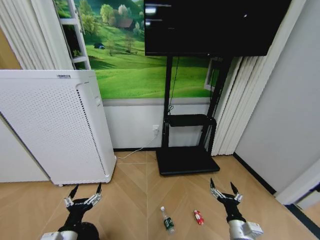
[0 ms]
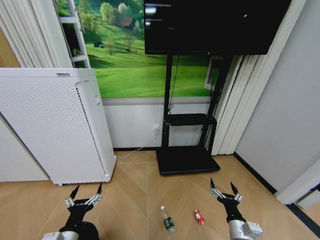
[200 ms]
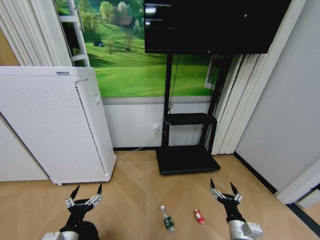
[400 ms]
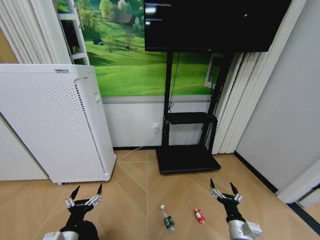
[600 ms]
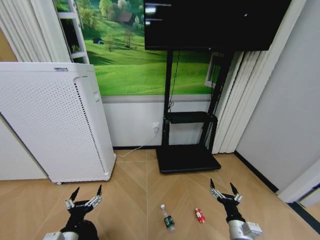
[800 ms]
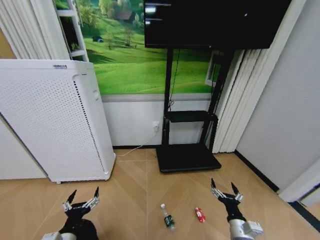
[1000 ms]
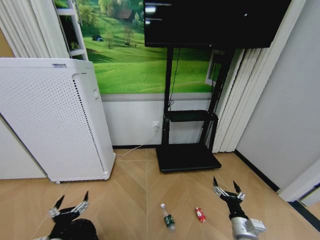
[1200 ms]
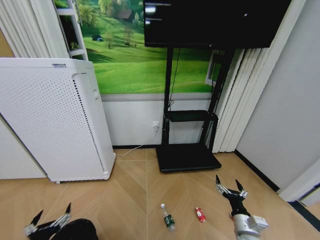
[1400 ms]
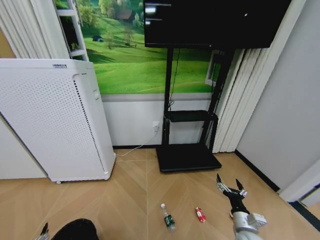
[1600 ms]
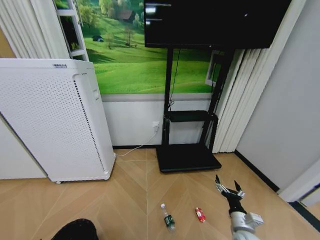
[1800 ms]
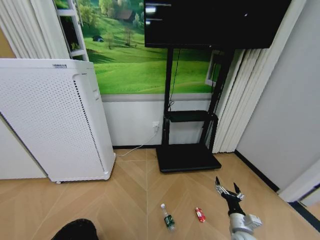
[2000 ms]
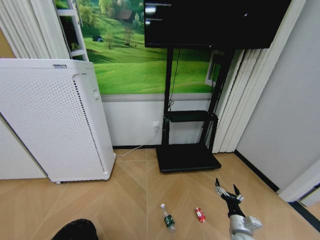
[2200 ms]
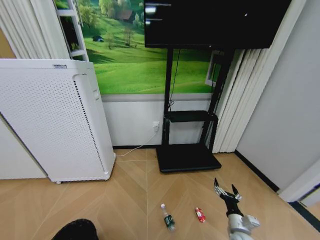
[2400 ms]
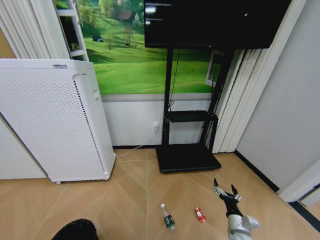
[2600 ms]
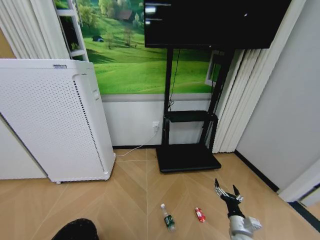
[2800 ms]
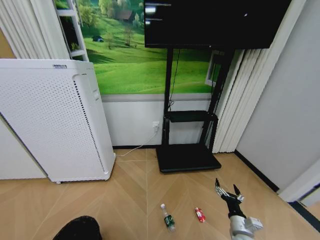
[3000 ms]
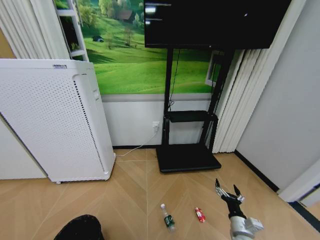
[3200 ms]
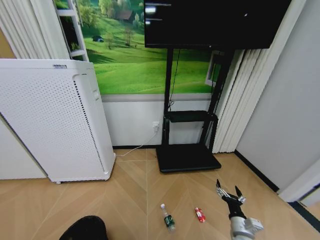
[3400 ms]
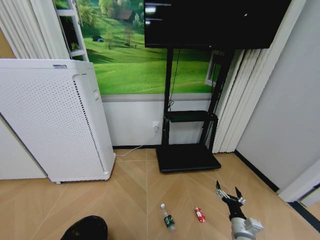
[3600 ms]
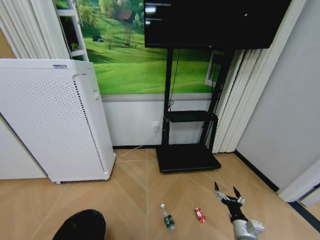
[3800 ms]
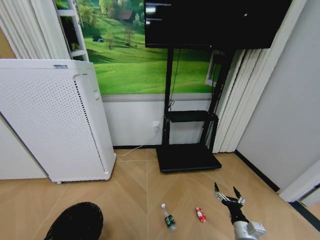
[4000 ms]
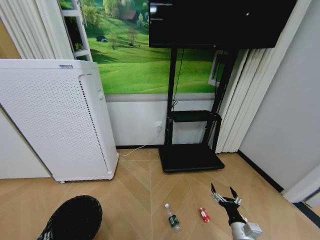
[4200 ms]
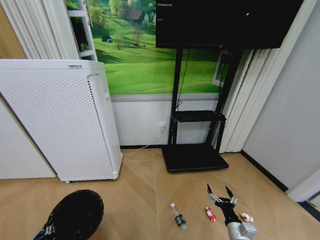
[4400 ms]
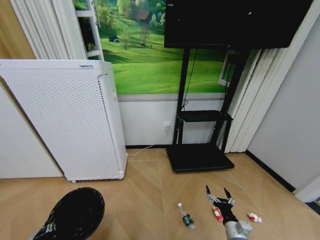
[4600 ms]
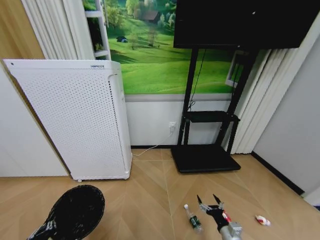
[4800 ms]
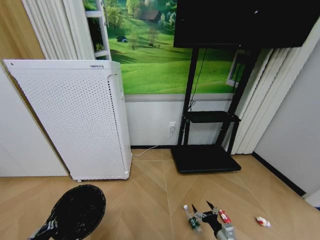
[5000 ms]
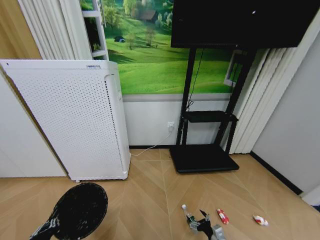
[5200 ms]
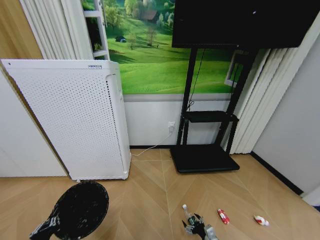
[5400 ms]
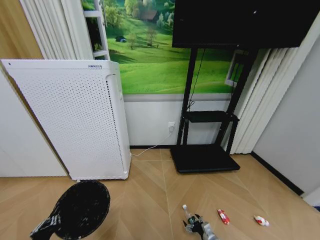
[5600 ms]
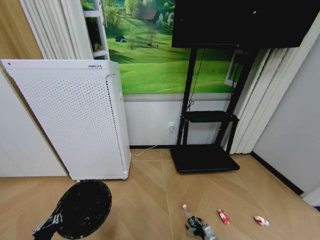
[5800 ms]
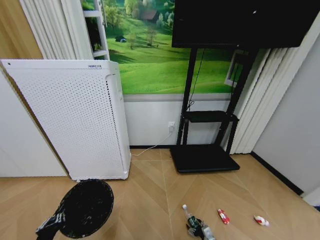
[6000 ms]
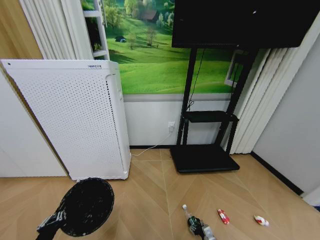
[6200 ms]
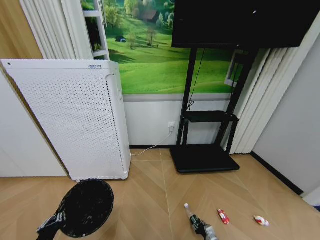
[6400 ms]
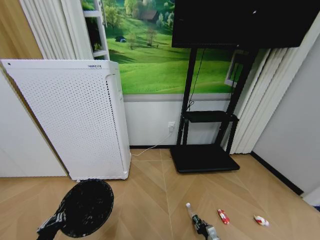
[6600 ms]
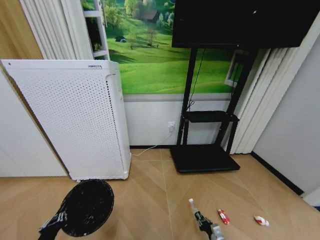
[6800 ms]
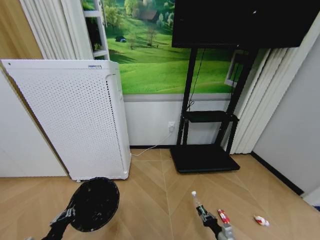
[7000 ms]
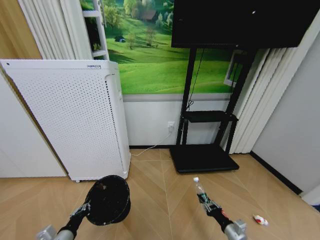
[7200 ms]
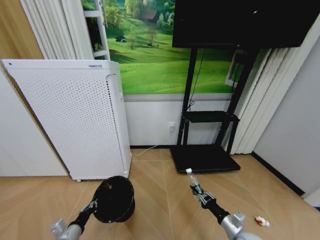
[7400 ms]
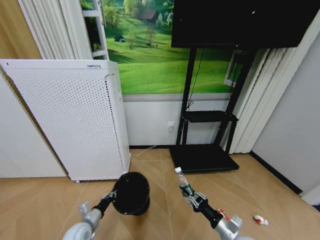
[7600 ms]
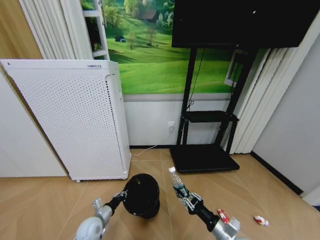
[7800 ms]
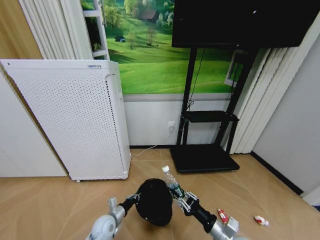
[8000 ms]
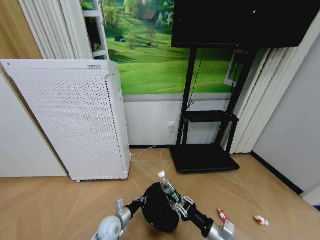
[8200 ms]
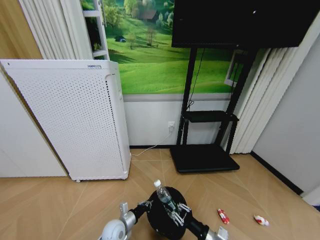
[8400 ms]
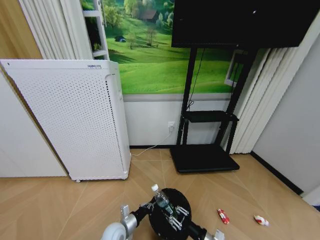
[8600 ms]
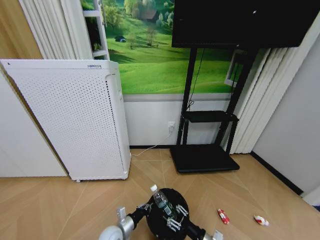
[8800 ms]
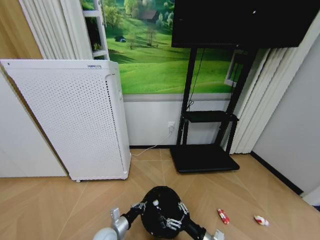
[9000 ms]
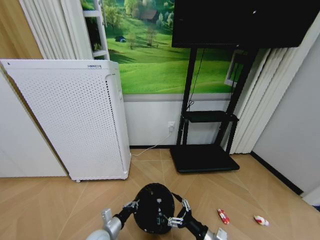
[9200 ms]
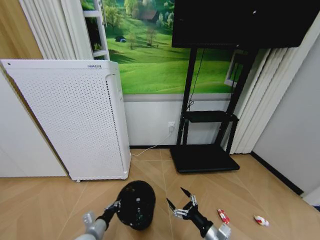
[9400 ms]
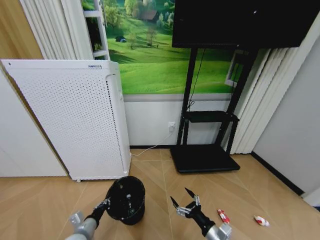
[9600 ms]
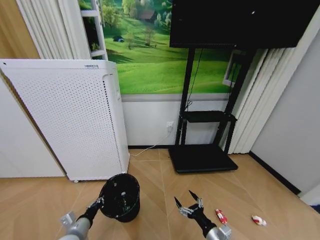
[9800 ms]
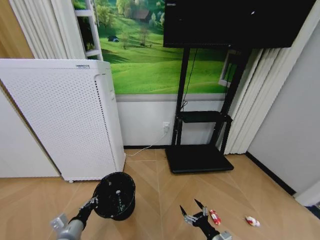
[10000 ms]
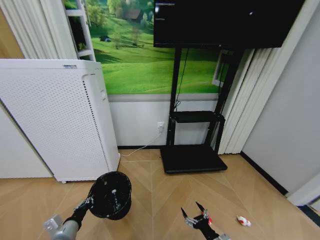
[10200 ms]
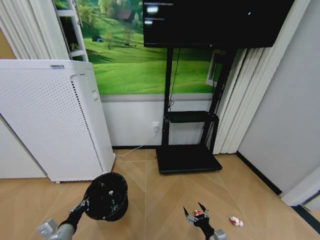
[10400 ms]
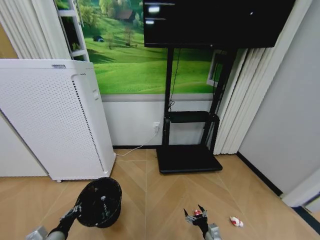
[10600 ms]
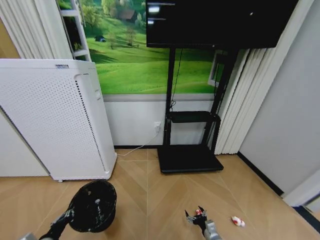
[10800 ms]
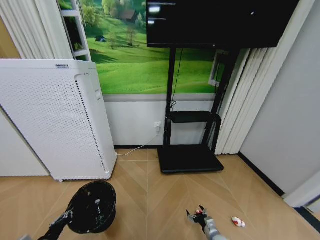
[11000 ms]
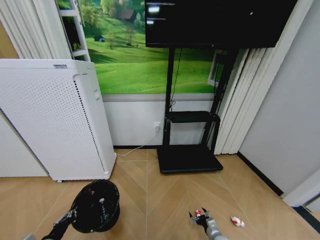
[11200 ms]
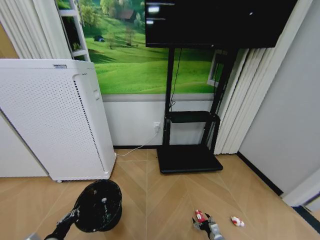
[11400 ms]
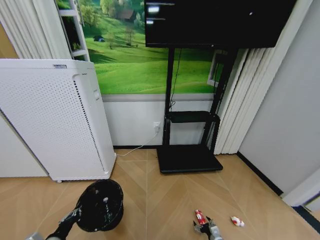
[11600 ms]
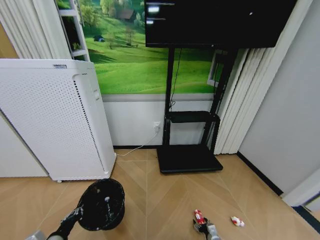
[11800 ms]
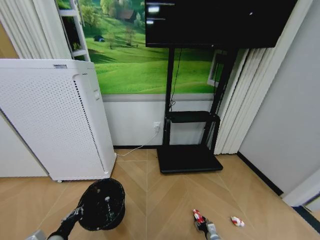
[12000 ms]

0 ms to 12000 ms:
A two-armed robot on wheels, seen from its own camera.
Task of the whole recording: Pick up the trash bin and place the garbage on the floor into it.
0 ms to 1600 ms: The left gripper travels backward and to the left by approximately 10 cm.
3000 ms to 4400 ms: The left gripper closes up.
4400 ms to 6000 ms: The right gripper travels downward by some 20 cm; the left gripper shifts by about 5 cm.
6000 ms to 7600 ms: The right gripper shifts about 25 cm upward, and closes its fingers. Meanwhile the left gripper goes about 15 cm forward and downward.
7600 ms to 9000 ms: The left gripper travels to the right by approximately 15 cm, while the right gripper goes roughly 10 cm to the left, and opens up.
9000 ms to 10400 ms: The right gripper moves downward, approximately 10 cm, and opens up. Meanwhile the left gripper shifts about 20 cm to the left, upward and backward.
10400 ms to 12000 ms: The right gripper moves downward and forward, some 20 cm, and closes up.

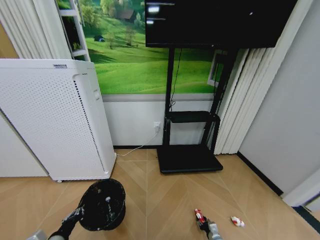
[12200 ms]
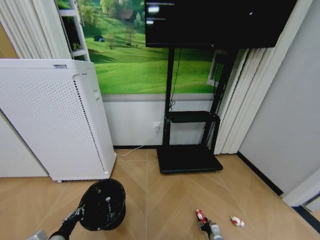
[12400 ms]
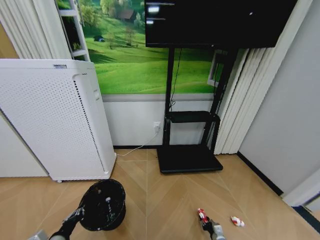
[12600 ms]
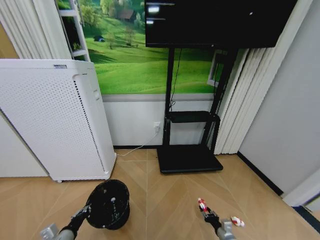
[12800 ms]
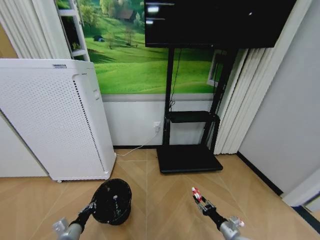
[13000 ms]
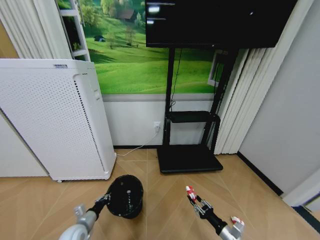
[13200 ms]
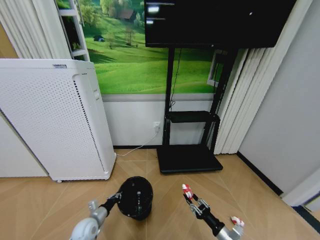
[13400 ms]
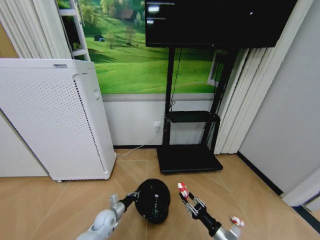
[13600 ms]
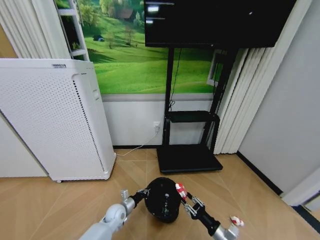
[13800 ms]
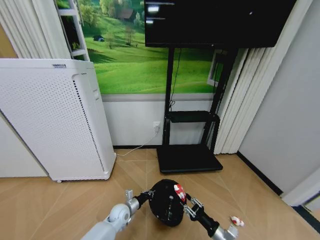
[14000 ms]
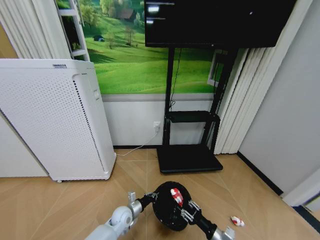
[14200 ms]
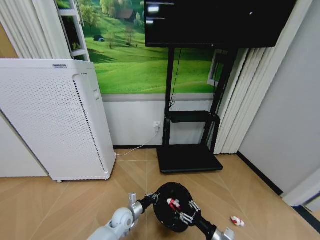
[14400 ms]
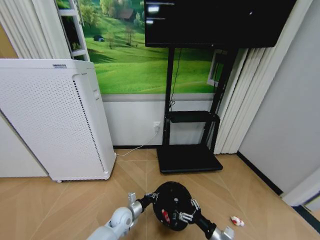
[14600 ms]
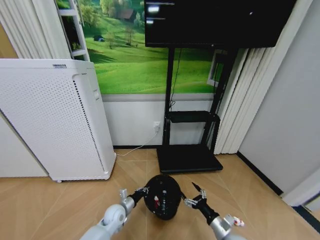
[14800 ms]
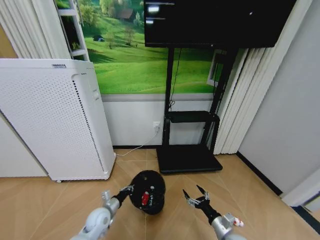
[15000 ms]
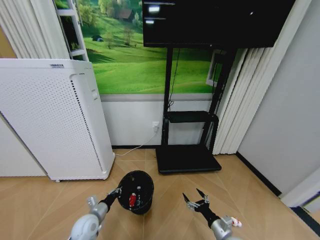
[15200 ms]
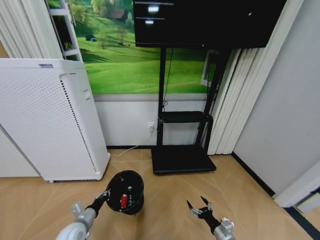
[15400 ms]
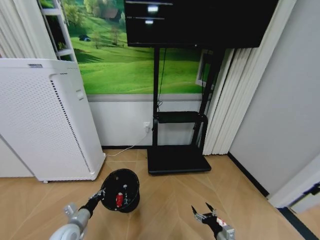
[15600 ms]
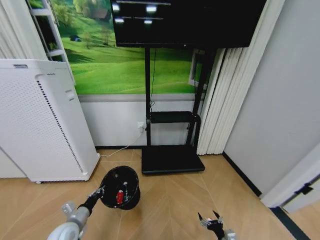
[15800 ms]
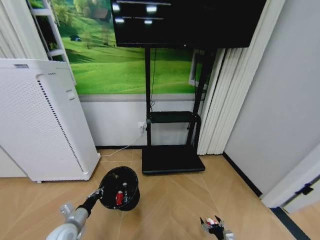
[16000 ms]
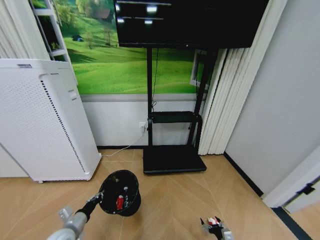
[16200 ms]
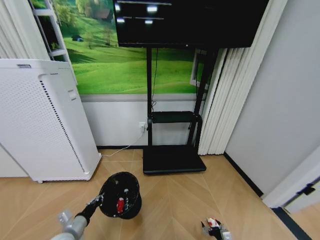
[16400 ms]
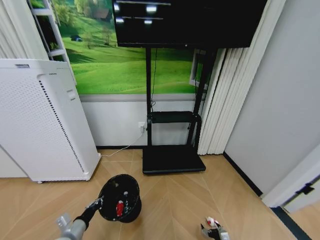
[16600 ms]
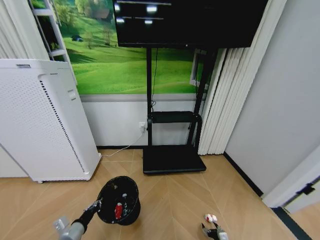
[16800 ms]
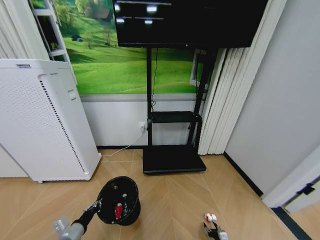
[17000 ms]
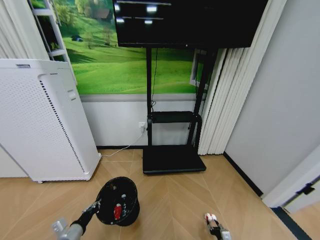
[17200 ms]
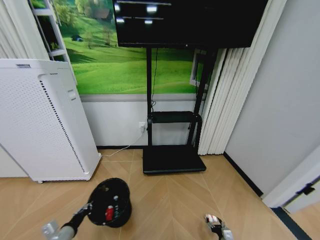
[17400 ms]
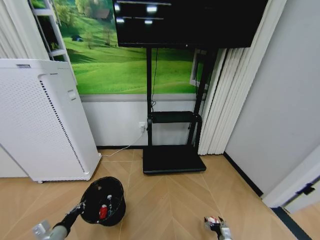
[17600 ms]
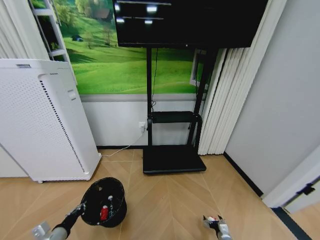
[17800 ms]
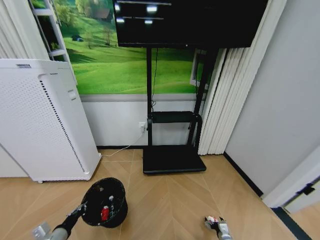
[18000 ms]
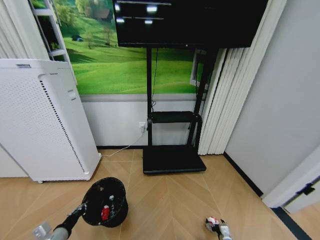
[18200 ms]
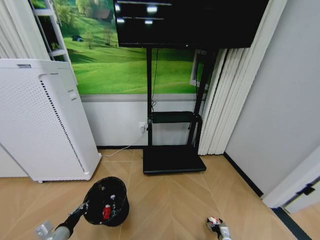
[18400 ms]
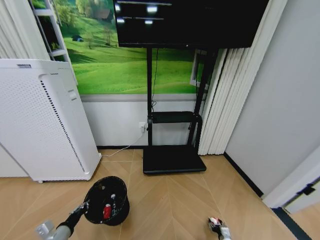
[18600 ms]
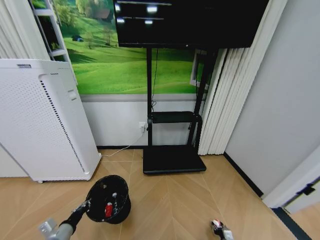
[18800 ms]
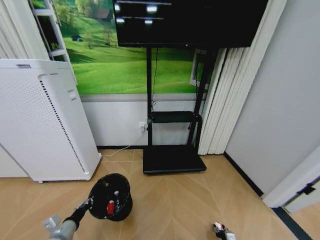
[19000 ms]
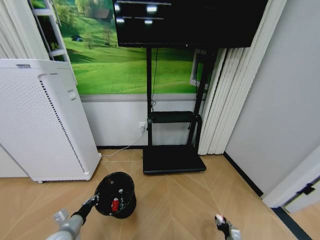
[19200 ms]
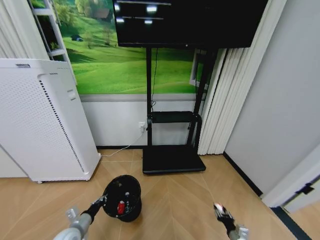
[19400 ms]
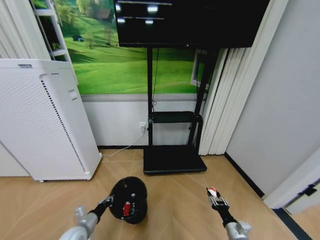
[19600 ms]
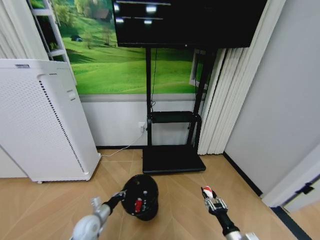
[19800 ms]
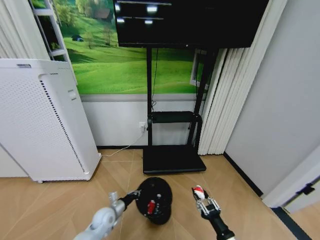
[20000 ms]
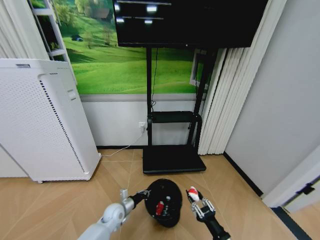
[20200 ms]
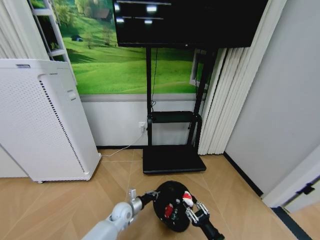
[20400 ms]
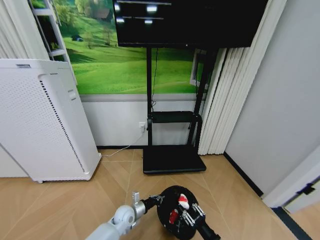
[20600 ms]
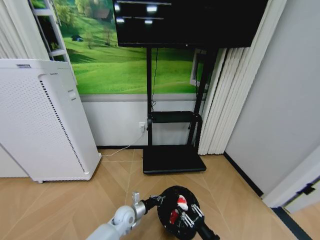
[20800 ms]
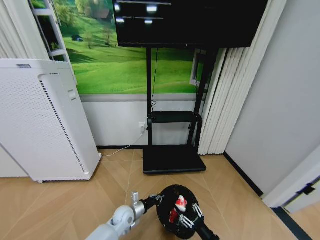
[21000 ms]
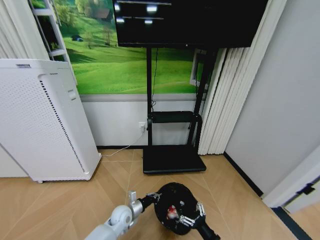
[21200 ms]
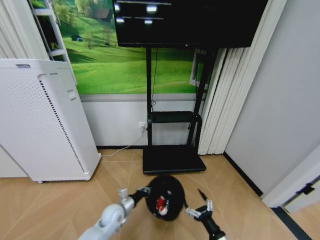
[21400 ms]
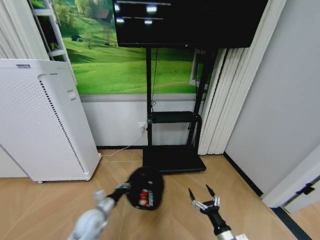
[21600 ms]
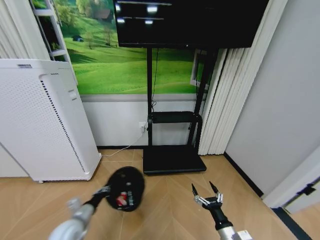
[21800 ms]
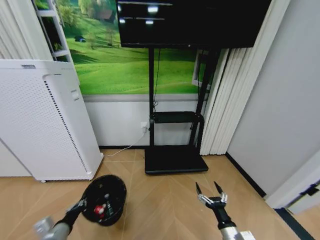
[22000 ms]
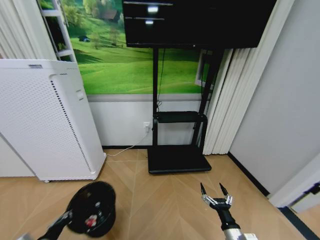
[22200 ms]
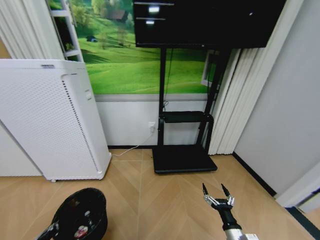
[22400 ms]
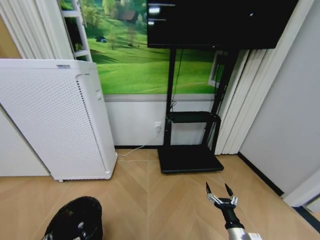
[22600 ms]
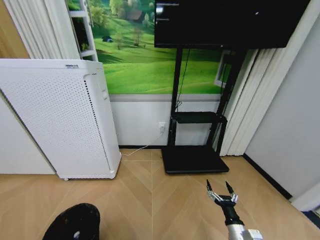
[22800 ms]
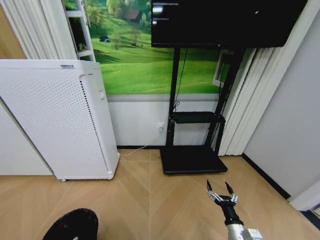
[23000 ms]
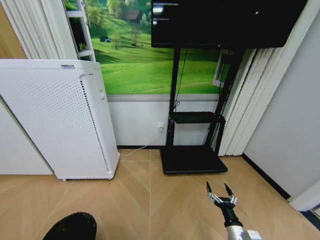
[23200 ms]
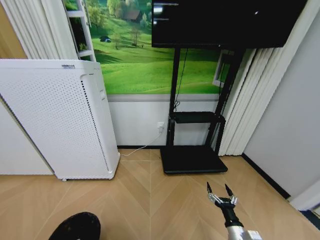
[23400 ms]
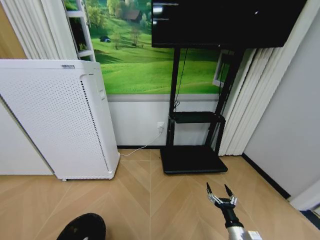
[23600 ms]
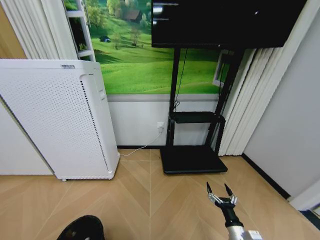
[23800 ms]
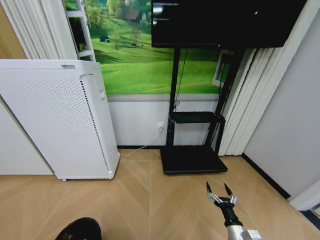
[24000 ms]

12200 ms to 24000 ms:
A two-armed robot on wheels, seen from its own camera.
Task of the whole recording: Pick up the trash bin and place the garbage on the floor into it.
12200 ms to 13600 ms: The left gripper goes some 25 cm forward, downward and to the right. Meanwhile the right gripper is displaced upward by roughly 20 cm.
13600 ms to 15200 ms: The right gripper opens, while the left gripper shifts roughly 5 cm upward, and travels to the right and back again, about 10 cm each way.
15200 ms to 16600 ms: The left gripper is displaced backward by some 10 cm. Meanwhile the right gripper is displaced downward by approximately 20 cm.
16600 ms to 18200 ms: The right gripper closes and opens again, while the left gripper changes place by about 5 cm.
18200 ms to 19600 ms: The right gripper goes about 20 cm upward, and closes up. Meanwhile the left gripper is displaced forward and to the right by approximately 10 cm.
19600 ms to 21000 ms: The left gripper moves to the right and forward, about 20 cm, while the right gripper is displaced to the left by approximately 10 cm.
21000 ms to 22600 ms: The right gripper opens. Meanwhile the left gripper is displaced to the left, backward and upward by about 35 cm.
22600 ms to 24000 ms: The left gripper shifts approximately 10 cm downward and backward.
